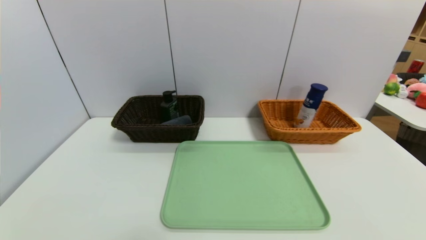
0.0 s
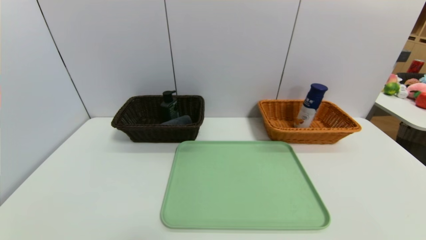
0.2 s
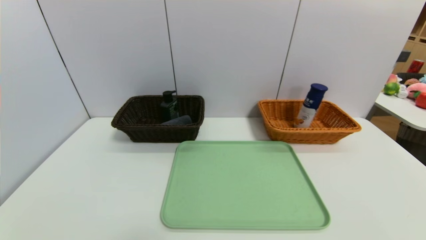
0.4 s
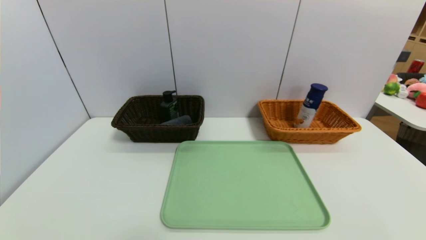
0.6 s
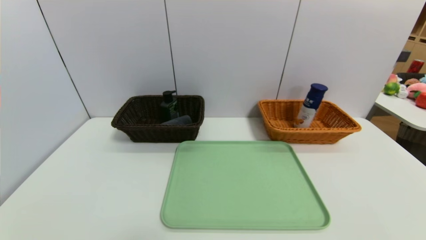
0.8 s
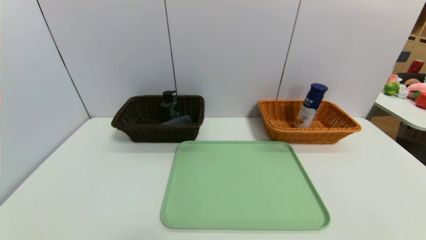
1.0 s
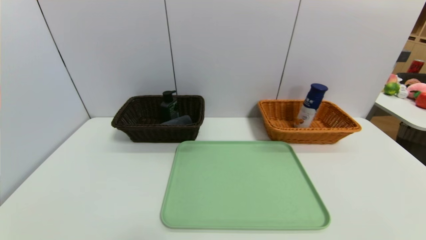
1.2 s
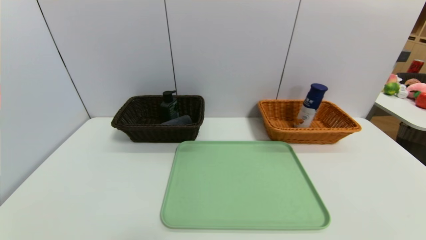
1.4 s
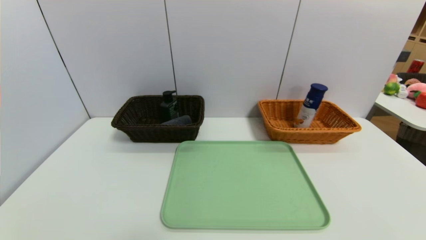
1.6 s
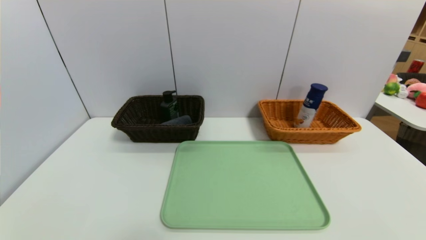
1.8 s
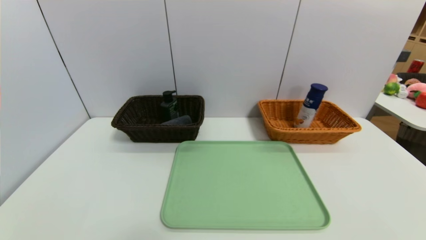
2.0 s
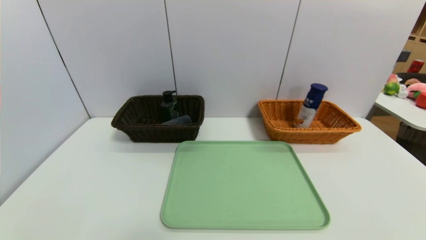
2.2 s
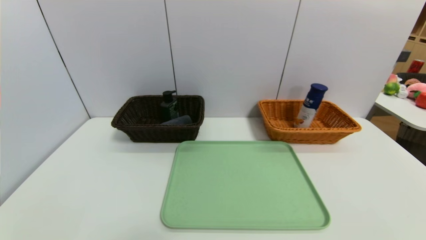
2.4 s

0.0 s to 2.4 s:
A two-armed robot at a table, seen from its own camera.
Task of the whole recording: place the food in the right basket with the right gripper, and place the non food items in the left basket with the left gripper.
1.2 to 2.4 s: Both grippers stay about where they are.

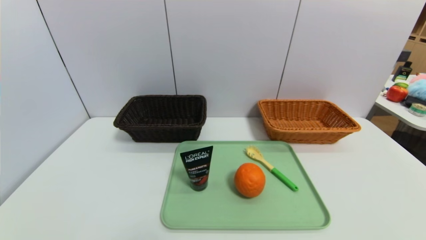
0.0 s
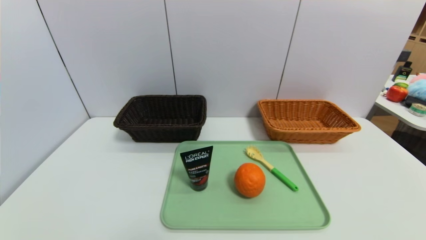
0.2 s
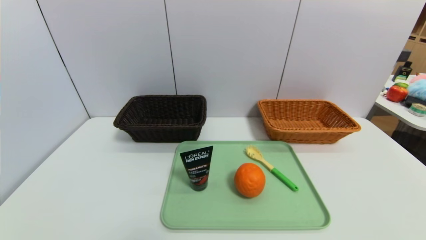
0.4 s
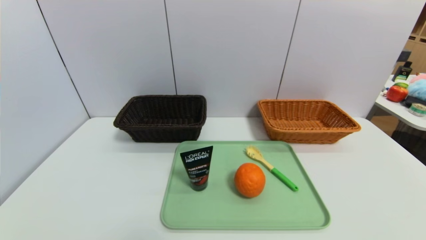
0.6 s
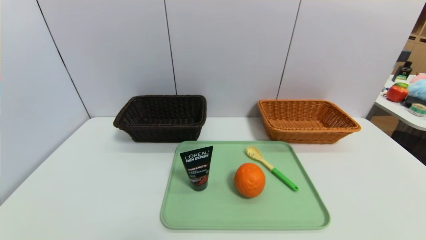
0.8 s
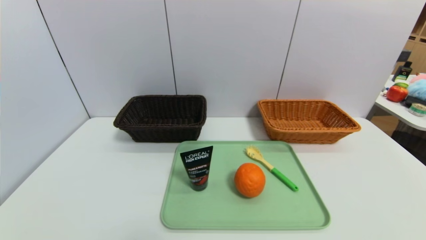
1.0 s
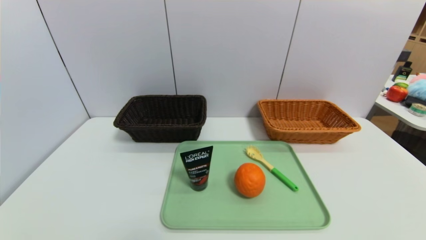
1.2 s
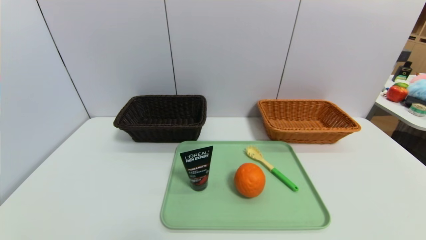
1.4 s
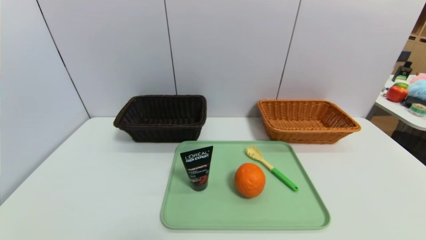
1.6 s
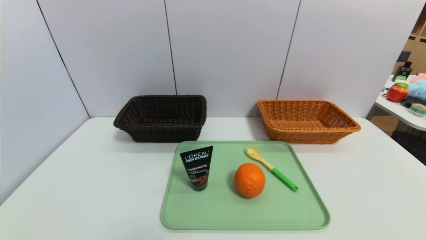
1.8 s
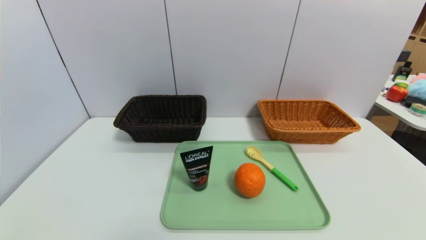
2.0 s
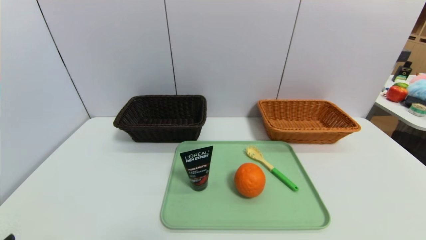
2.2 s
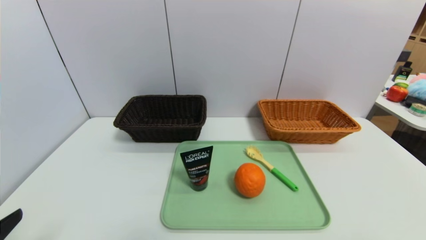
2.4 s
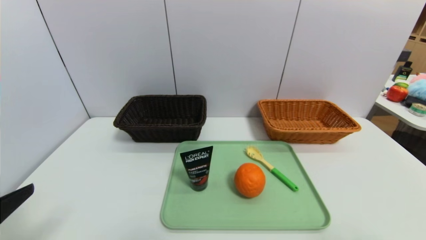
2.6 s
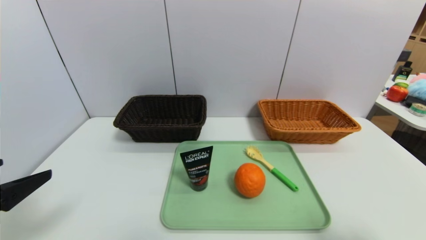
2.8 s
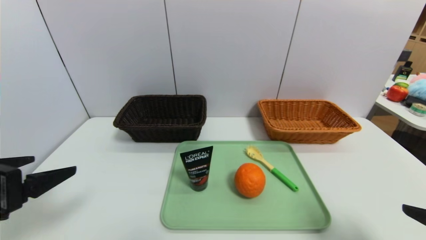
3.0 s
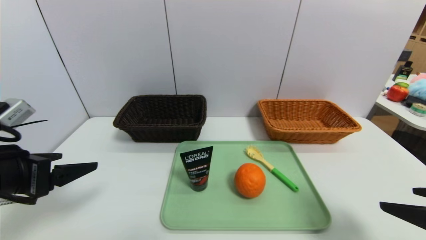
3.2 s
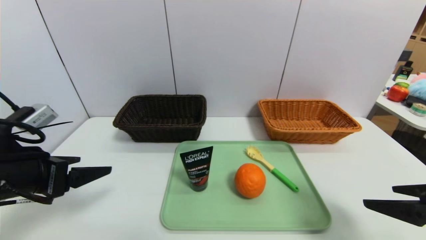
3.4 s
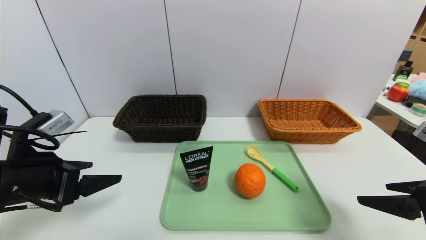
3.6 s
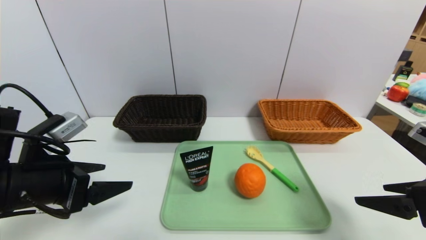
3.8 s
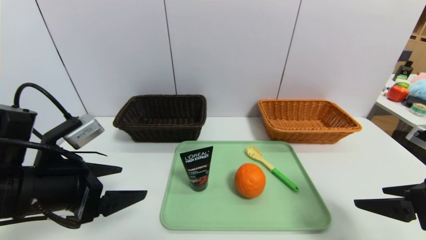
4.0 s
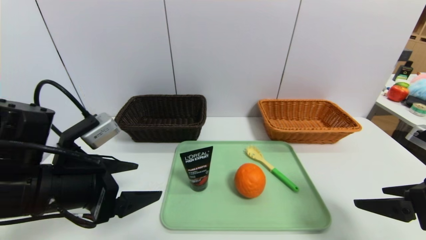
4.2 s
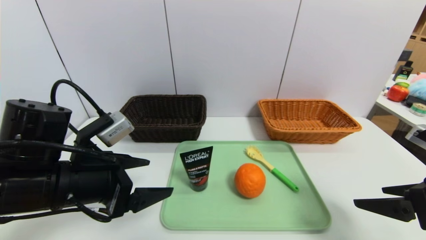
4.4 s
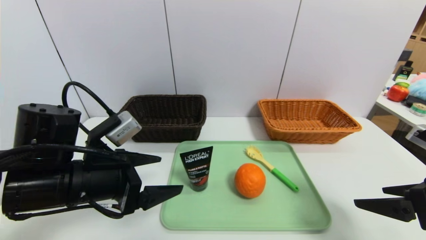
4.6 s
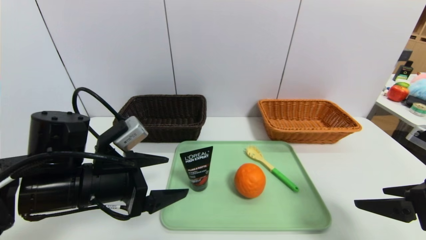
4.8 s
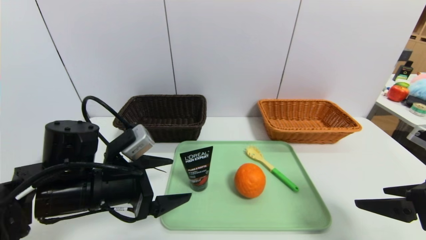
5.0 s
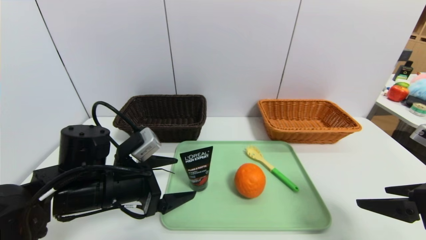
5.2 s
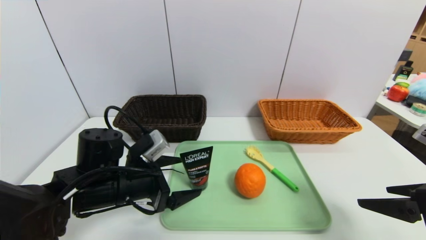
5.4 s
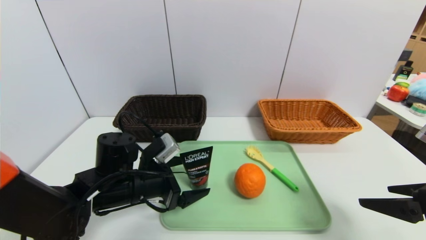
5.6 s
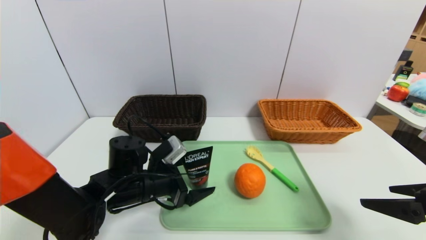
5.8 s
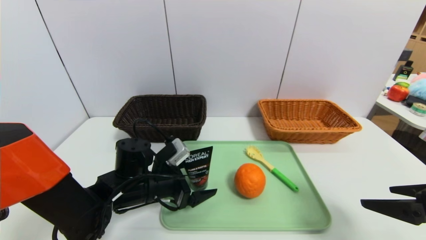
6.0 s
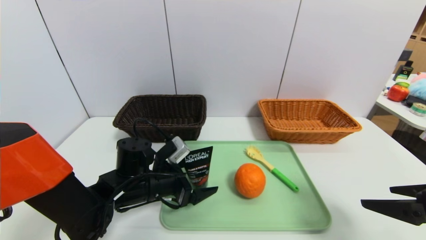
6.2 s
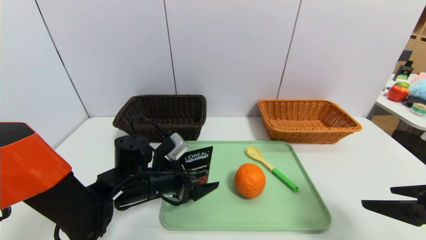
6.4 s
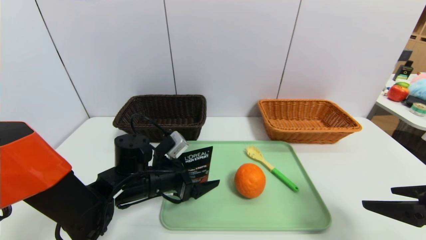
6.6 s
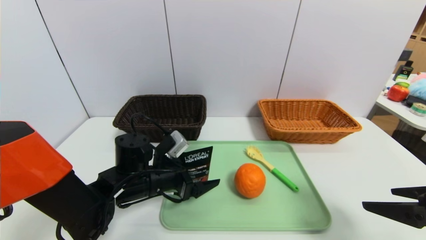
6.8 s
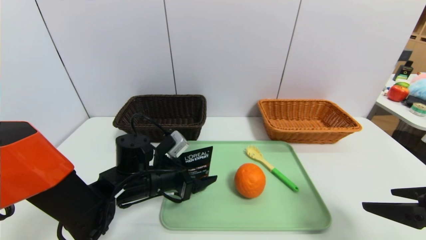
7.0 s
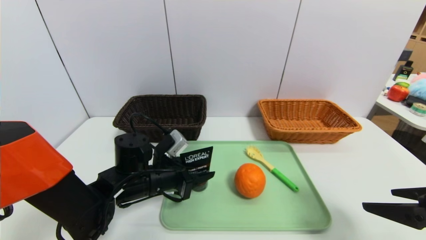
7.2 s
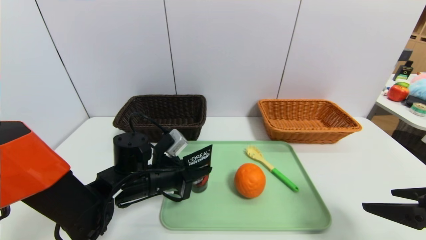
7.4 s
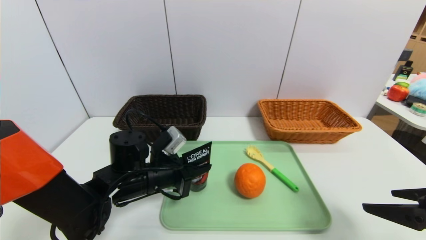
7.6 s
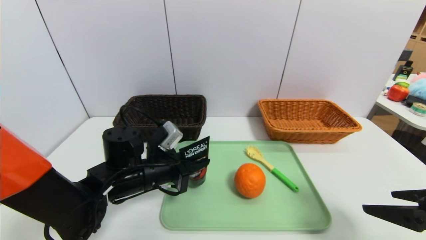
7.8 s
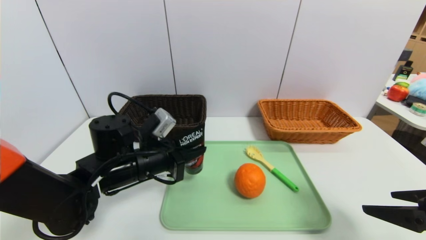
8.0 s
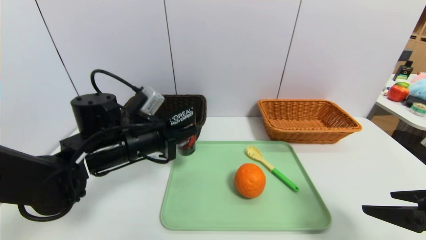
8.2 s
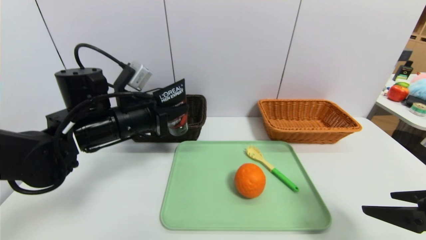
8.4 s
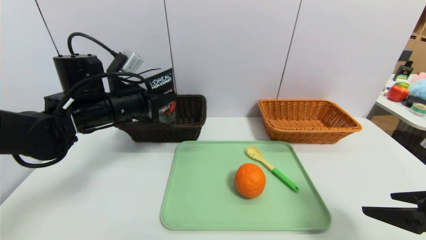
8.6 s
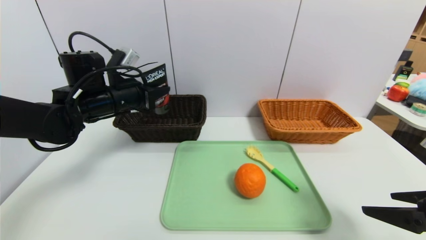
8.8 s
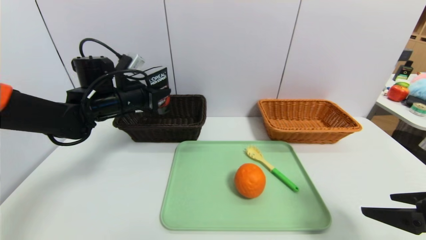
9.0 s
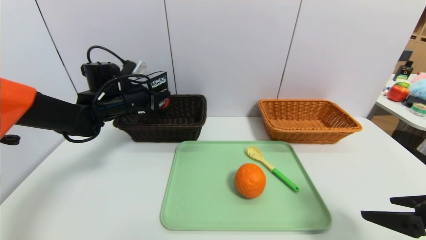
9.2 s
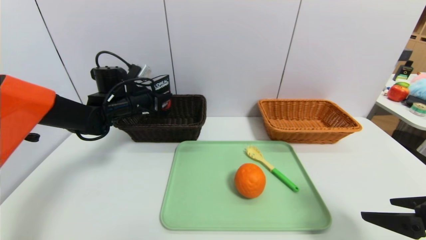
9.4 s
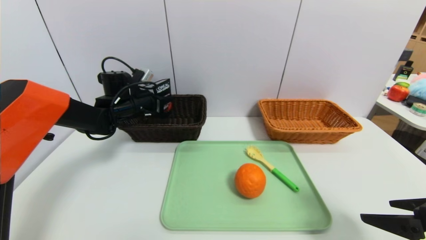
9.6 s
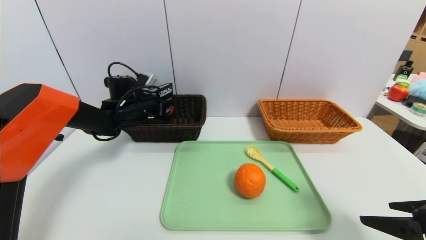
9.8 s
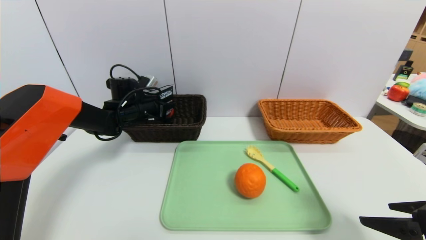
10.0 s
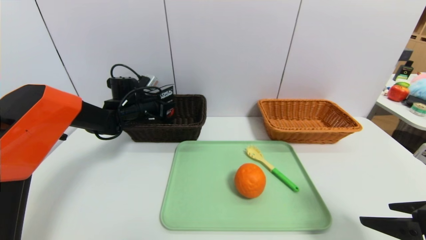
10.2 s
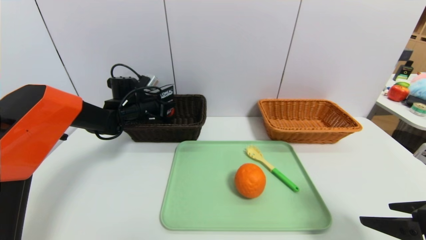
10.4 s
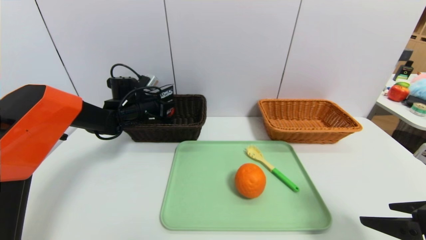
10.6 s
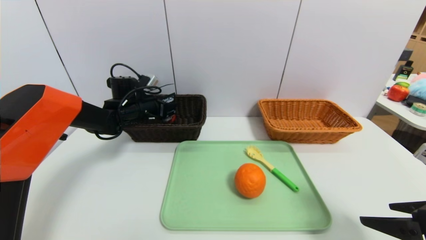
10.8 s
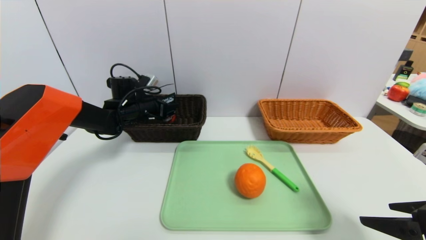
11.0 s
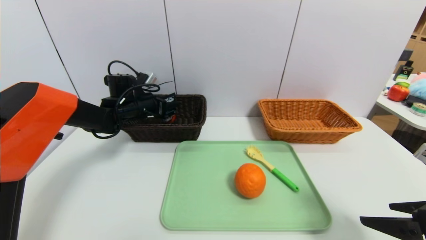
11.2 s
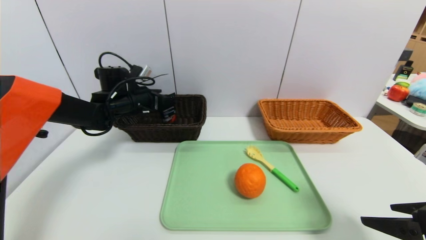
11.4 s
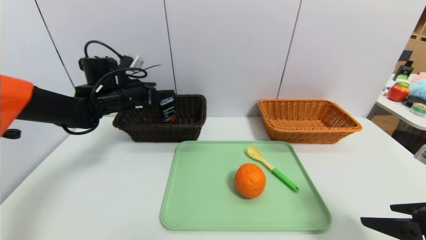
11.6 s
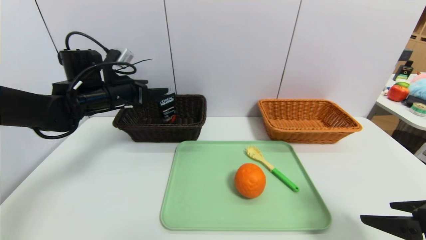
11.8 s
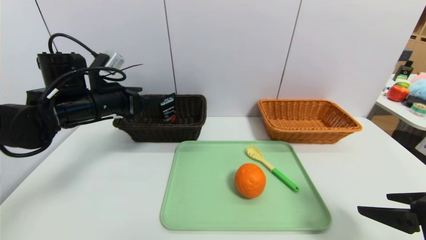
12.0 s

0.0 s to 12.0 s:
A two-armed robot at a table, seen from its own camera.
Task of the whole recording: place the food in the right basket with the right gripper, and place the non food items in the left basket with the left gripper.
Step, 0.0 to 11.2 s: Grasp the soft cleanser and put it in the left basket.
1.6 to 3.0 s: Both grippers move upward and forward, roughly 20 cm.
3.0 to 4.4 s: The right gripper shifts roughly 5 cm forward, while the left gripper is displaced to the right and forward by about 10 cm.
4.4 to 6.0 s: The left gripper goes approximately 15 cm downward, forward and to the right.
6.0 to 7.6 s: The left gripper closes up.
7.6 to 9.0 s: The left gripper moves forward, upward and to the left, about 20 cm.
9.0 to 10.4 s: The left gripper travels forward and downward by roughly 10 cm.
10.4 to 12.0 s: The left gripper travels backward and upward by some 15 cm, and opens its fingers.

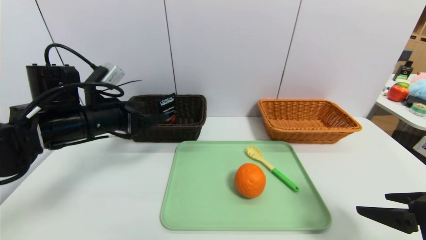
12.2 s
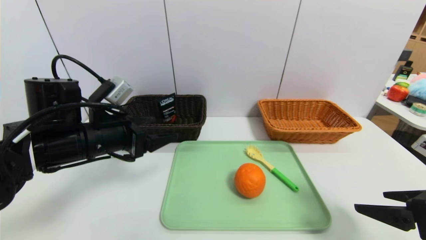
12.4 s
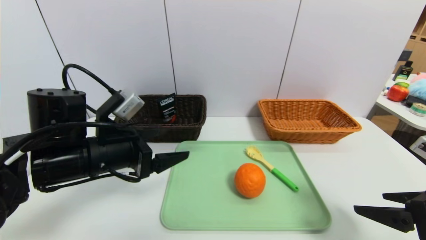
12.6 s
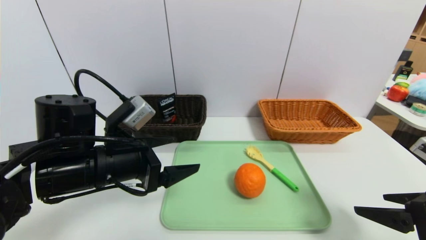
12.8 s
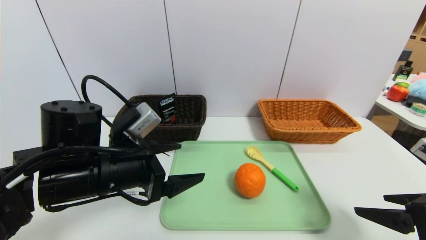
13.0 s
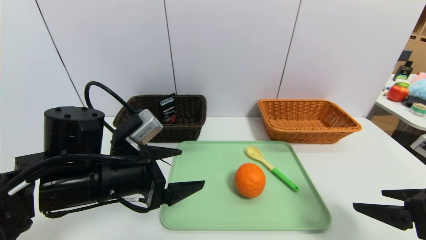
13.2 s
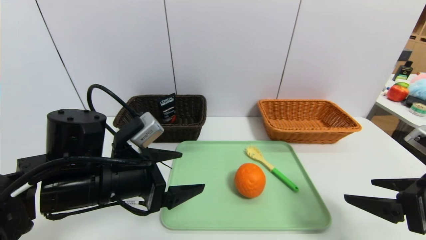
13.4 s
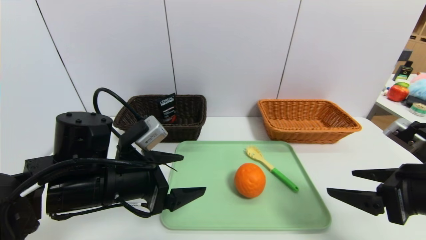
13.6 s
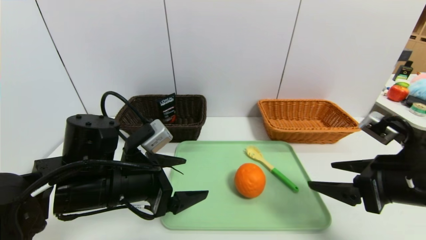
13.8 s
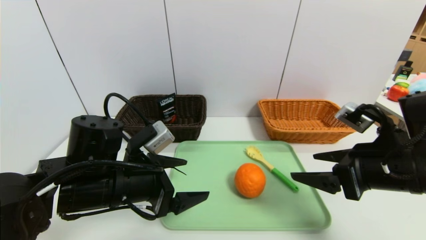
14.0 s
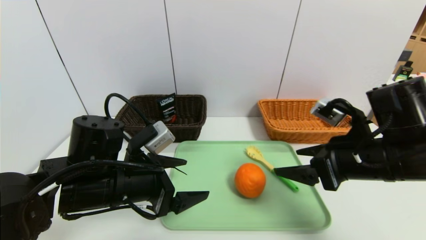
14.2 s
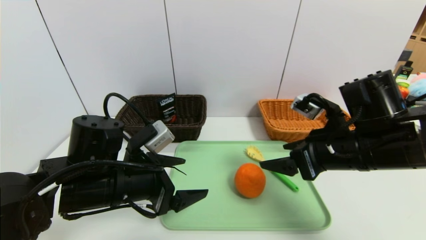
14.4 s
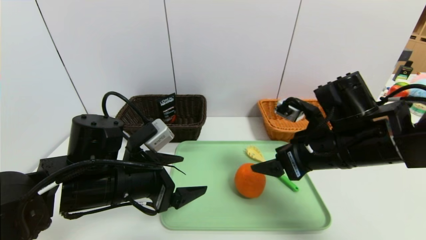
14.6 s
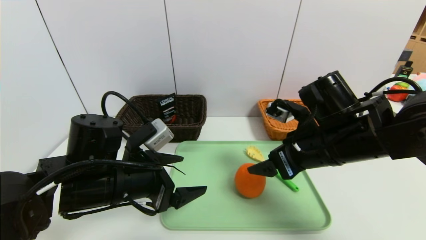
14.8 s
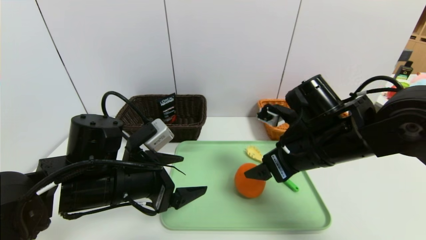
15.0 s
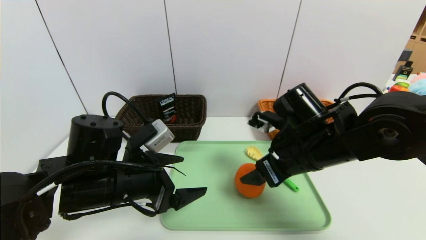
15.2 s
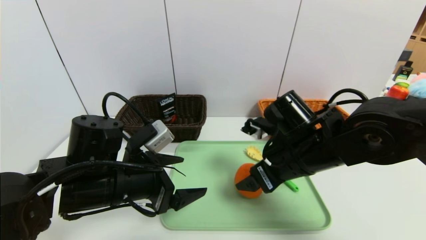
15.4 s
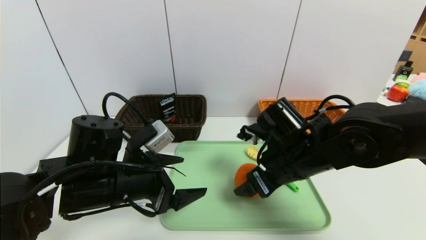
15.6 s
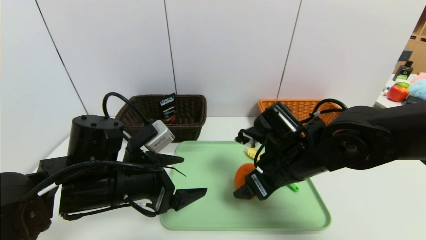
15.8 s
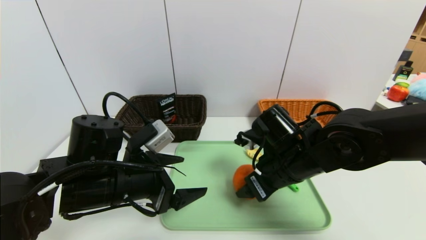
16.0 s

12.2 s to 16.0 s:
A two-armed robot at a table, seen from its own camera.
Task of the whole recording: place the food in the right basket with the right gripper, and place the non food items in the left basket with the left gripper.
12.2 to 13.4 s: The left gripper moves backward and to the right, approximately 10 cm.
13.4 to 14.8 s: The right gripper moves to the left and forward, some 20 cm.
14.8 to 16.0 s: The right gripper is displaced downward by about 5 cm, and closes up.
